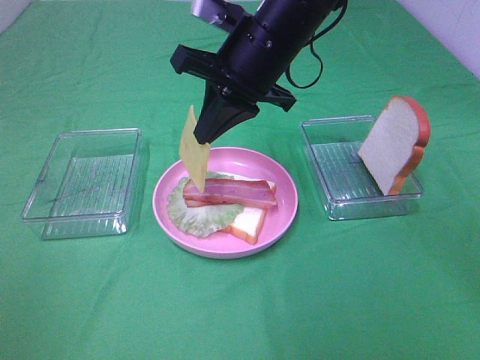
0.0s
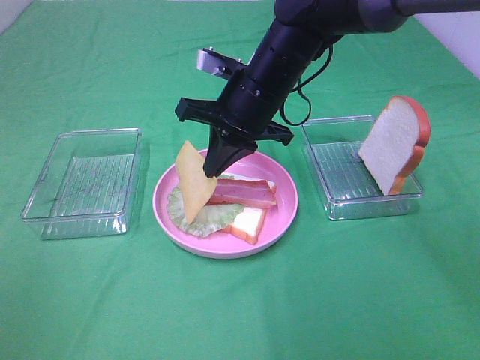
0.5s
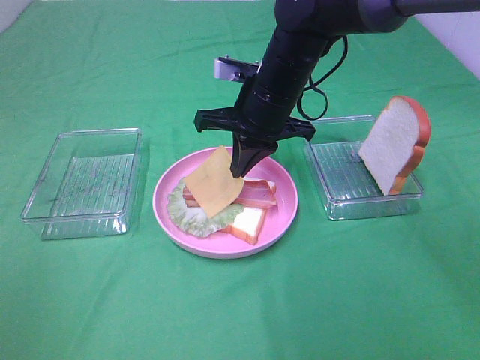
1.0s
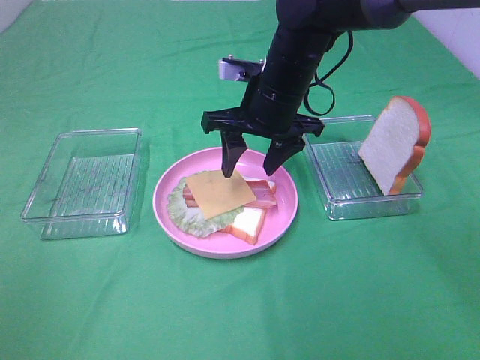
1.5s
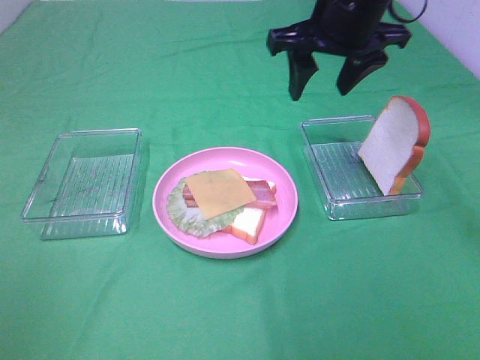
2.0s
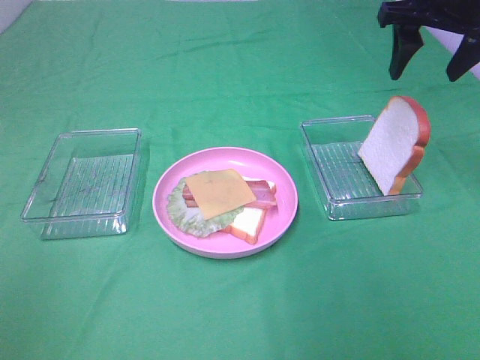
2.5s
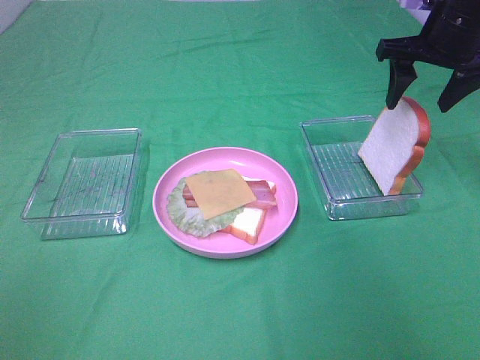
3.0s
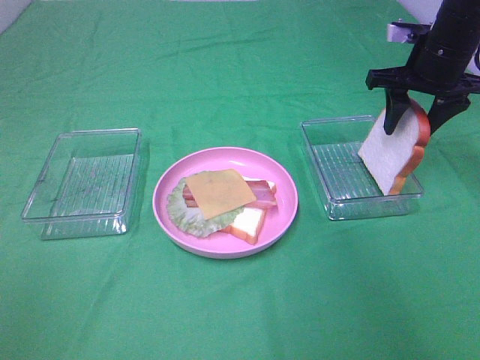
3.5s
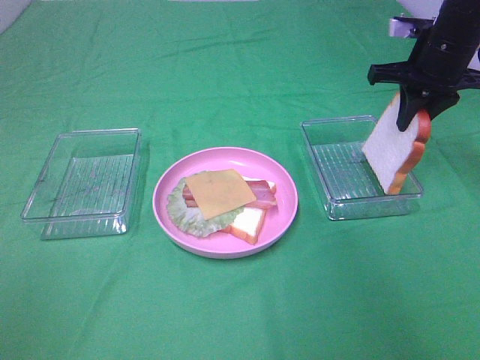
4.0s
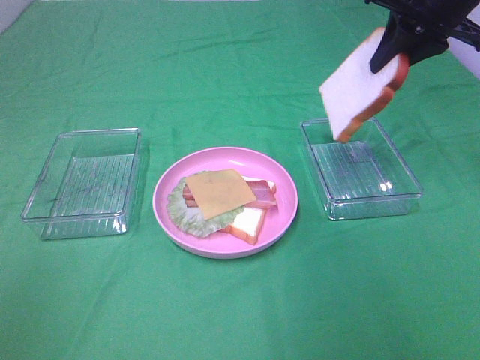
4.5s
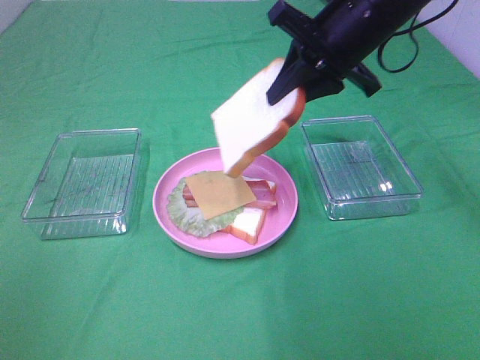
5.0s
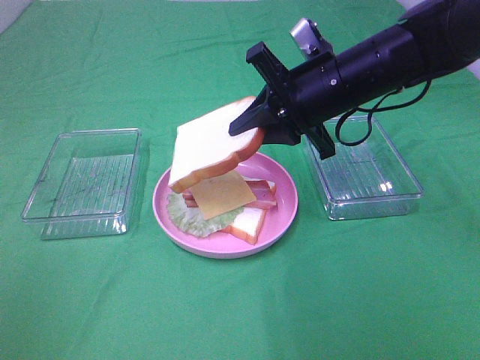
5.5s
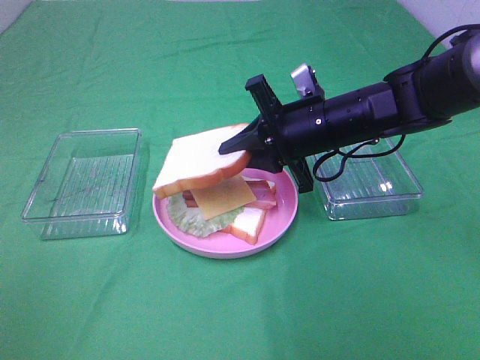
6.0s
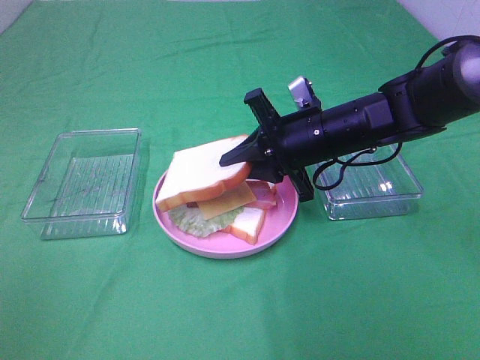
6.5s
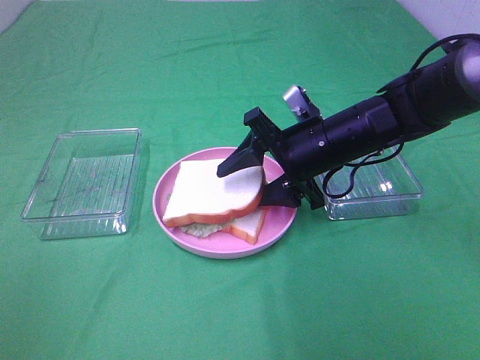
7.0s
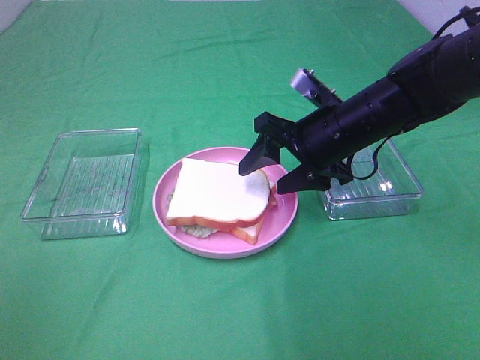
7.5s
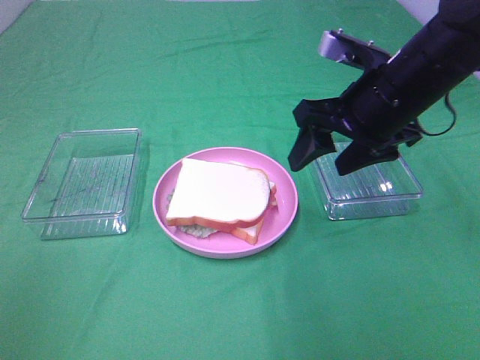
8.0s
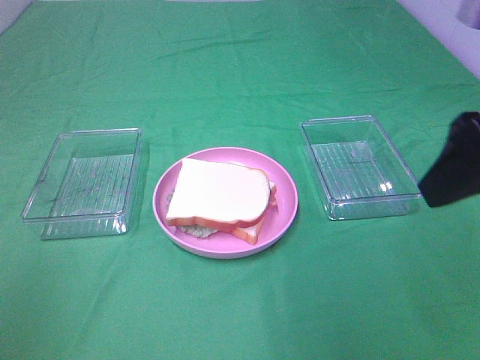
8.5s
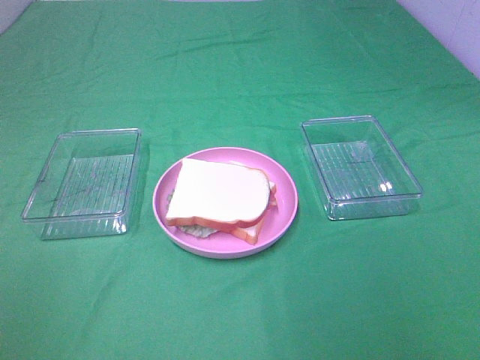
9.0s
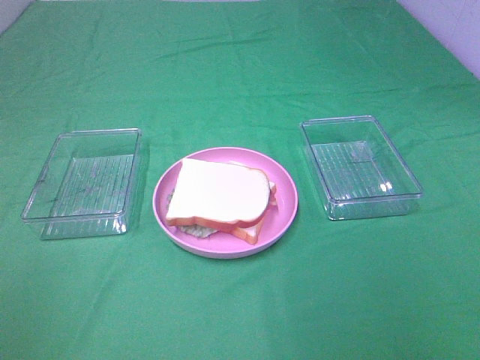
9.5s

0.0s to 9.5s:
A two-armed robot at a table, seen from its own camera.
Task of the whole recording: Make sandwiches.
Step, 1.5s to 3.5s: Right hand:grab the bread slice.
Step, 4.0s to 7.5s: Right hand:place the bread slice on the cheese slice.
0.0s to 2.0s: The right gripper moves to the right, approximately 10 cm, and opens its fingers.
2.0s to 4.0s: The right gripper moves to the right and downward, about 15 cm, and closes up.
4.0s to 5.5s: The right gripper is displaced to the left and backward by roughly 15 cm.
5.5s to 7.5s: The right gripper opens.
7.5s to 9.5s: The right gripper heads backward, to the right and upward, covering about 40 cm.

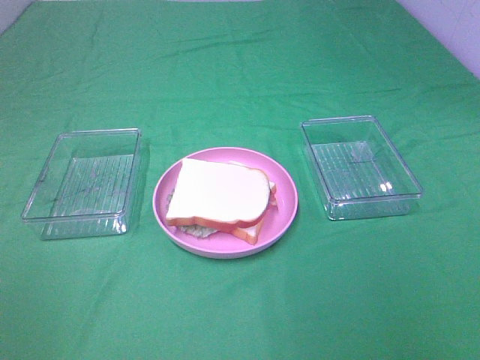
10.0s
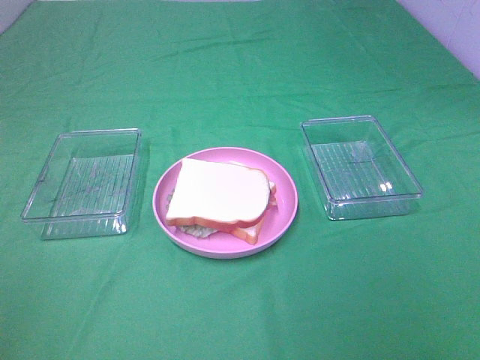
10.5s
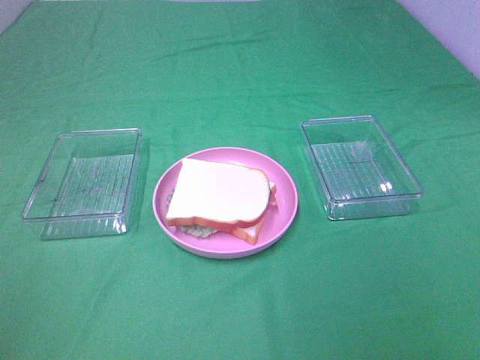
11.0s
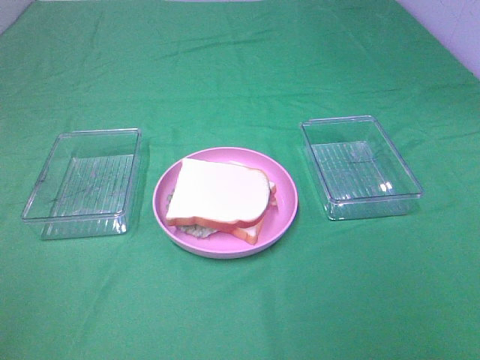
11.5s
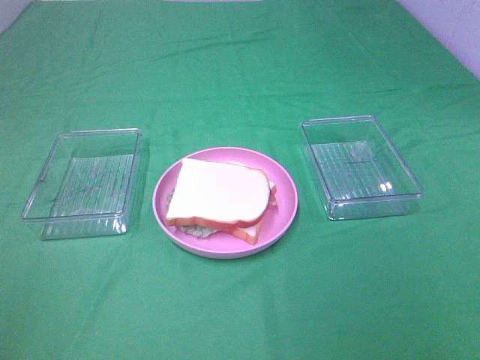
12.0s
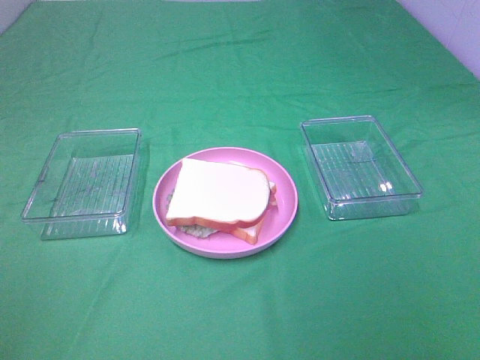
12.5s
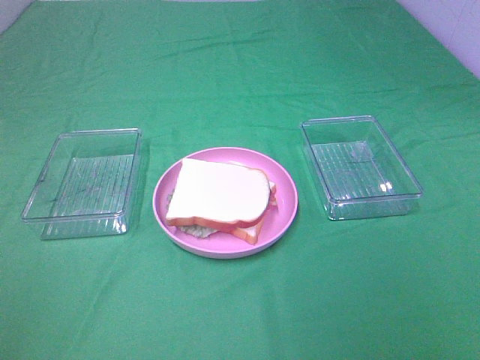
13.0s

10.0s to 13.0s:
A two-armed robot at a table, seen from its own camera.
Task of the whole recording: Make sandwiches.
11.5s to 13.0s: Both grippers stay put.

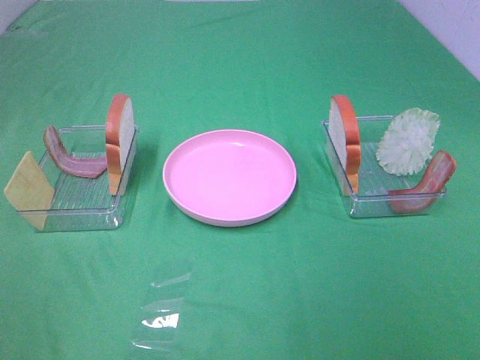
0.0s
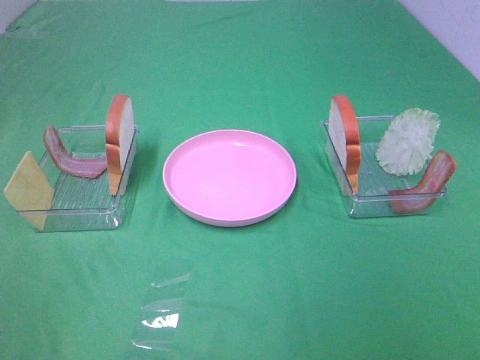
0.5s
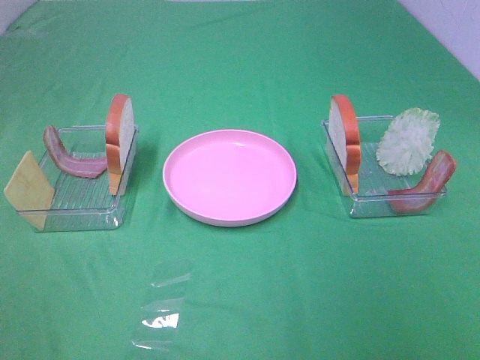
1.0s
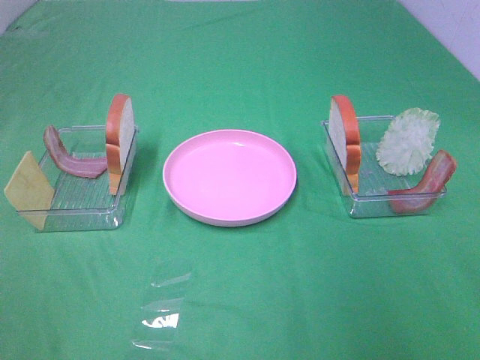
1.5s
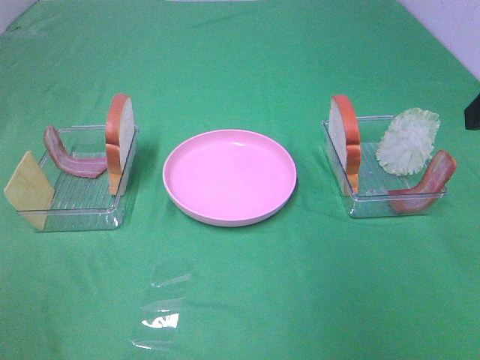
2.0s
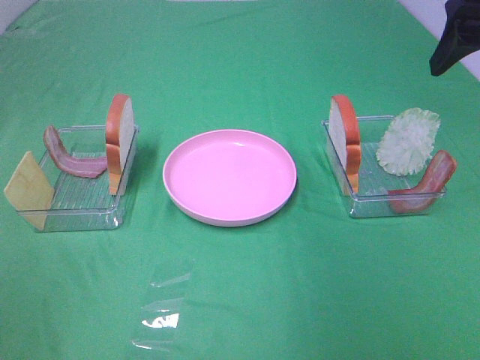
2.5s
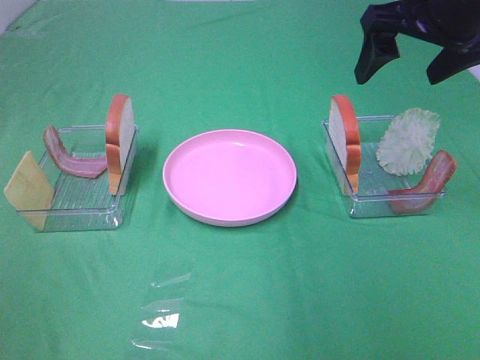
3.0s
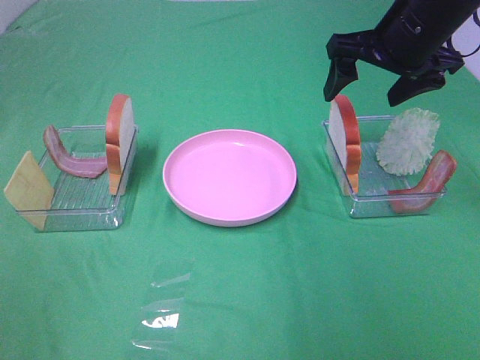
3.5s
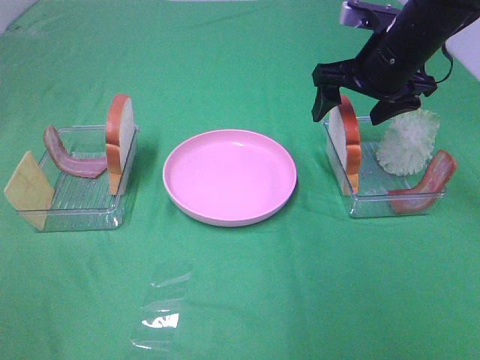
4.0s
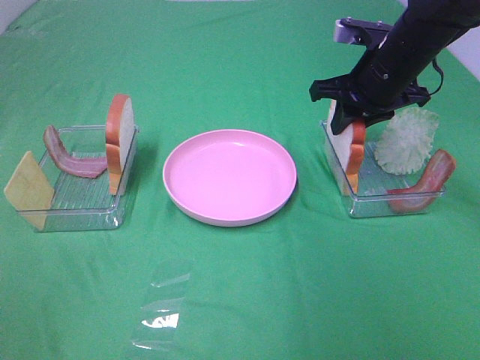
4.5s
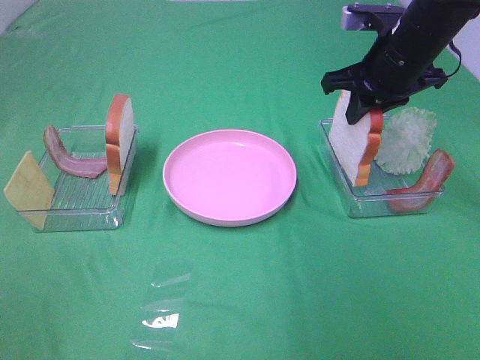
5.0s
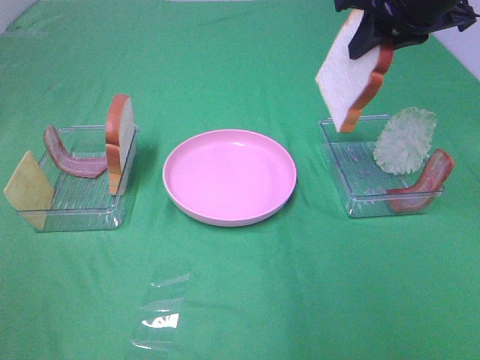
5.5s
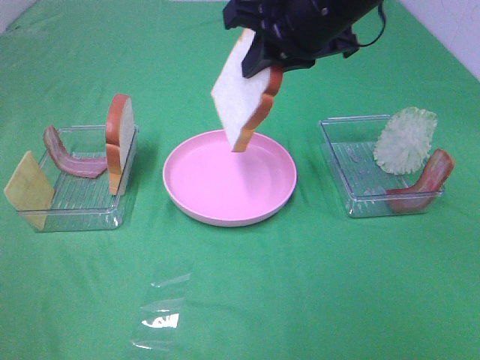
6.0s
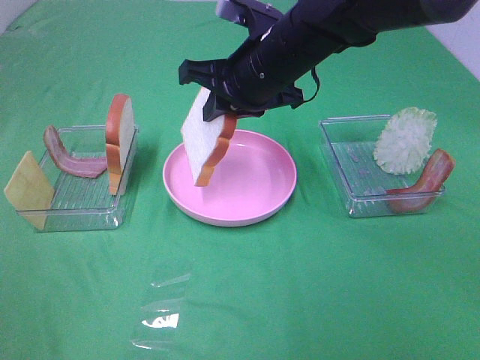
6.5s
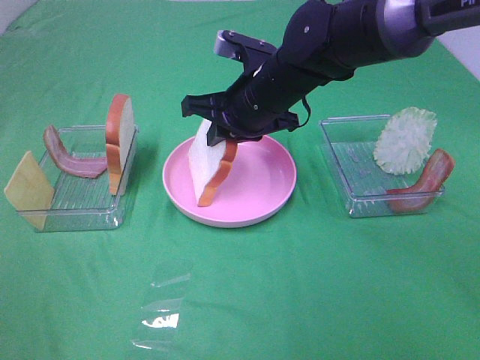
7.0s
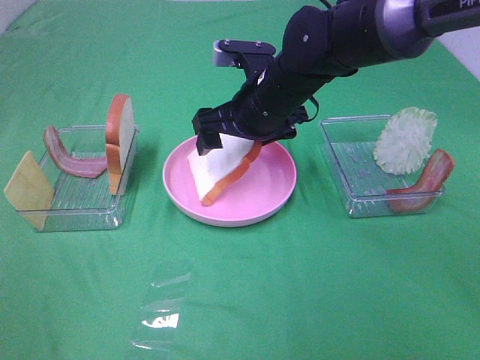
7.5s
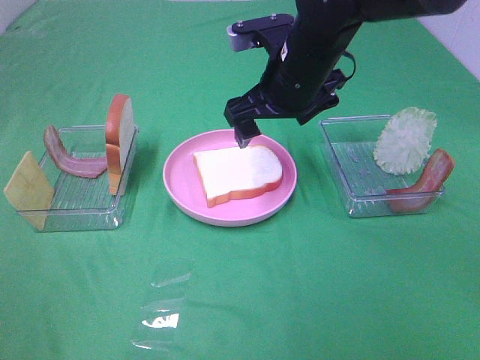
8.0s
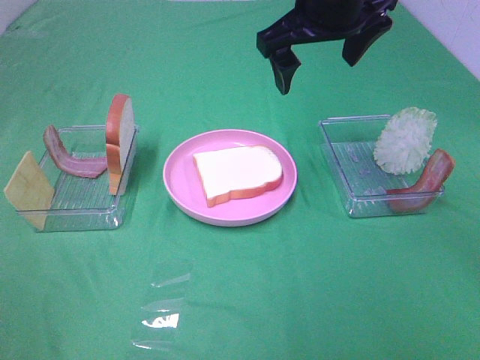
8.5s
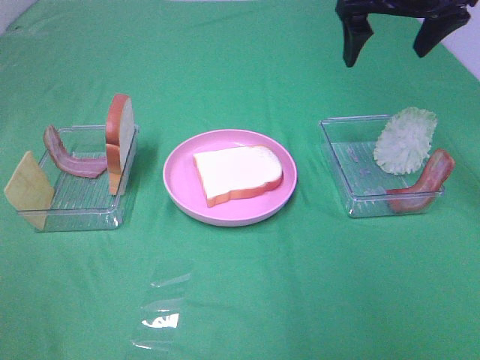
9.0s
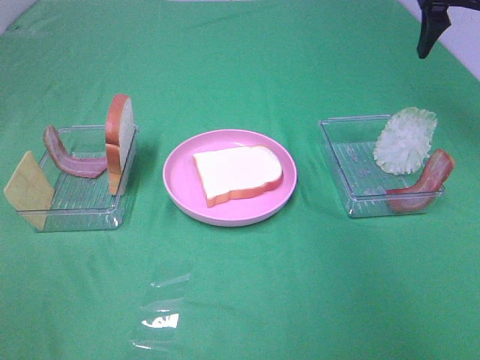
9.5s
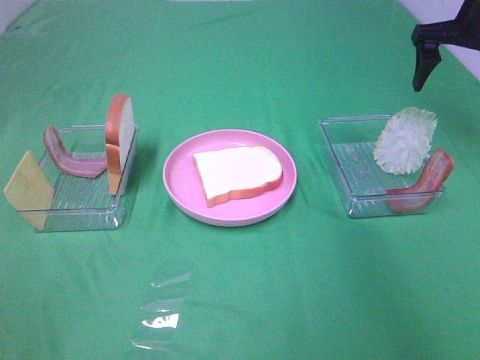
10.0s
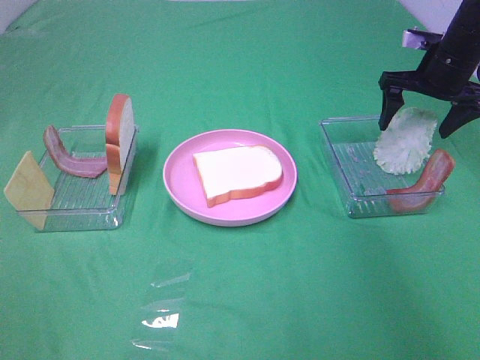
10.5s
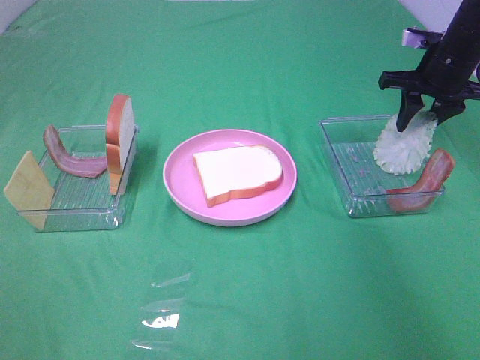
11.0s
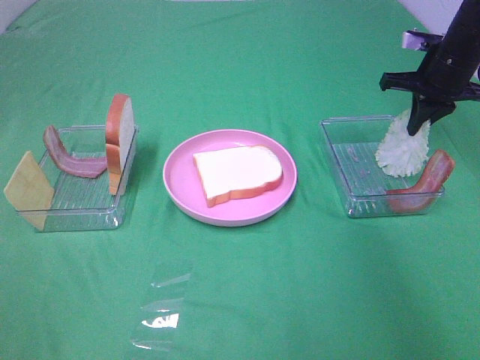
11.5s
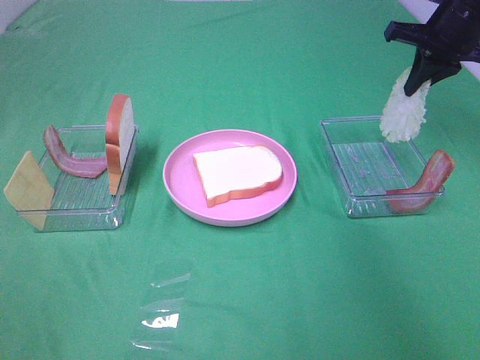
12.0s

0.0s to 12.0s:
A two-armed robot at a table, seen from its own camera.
Task of the whole recording: Make sandwiches.
Step, 0.0s to 4.5s: Right hand:grab the bread slice.
Step, 5.0s to 7.5s: Right hand:place the bread slice on the plate.
Step, 8.0s to 11.0s: Right hand:grab the lettuce slice.
2.0s to 4.0s: The right gripper goes roughly 25 cm forward, downward and to the left.
4.0s to 6.0s: The right gripper shifts roughly 15 cm to the left and upward, and closes its fingers.
6.0s to 8.0s: The right gripper is displaced downward by roughly 5 cm, and opens.
8.0s to 10.0s: The right gripper is displaced to the right by roughly 25 cm.
10.0s to 12.0s: The right gripper moves about 10 cm downward and comes back, and closes up.

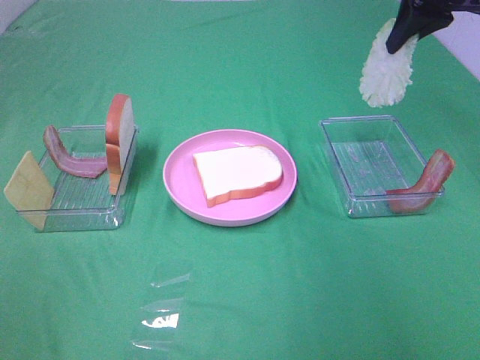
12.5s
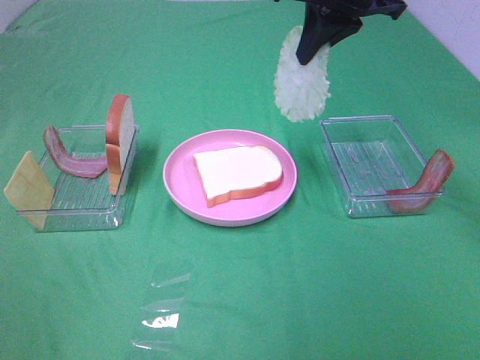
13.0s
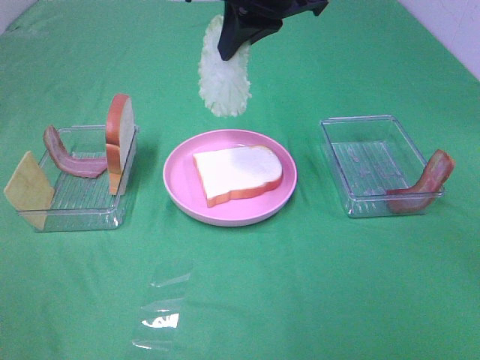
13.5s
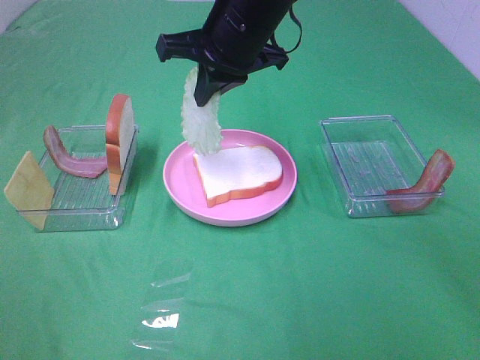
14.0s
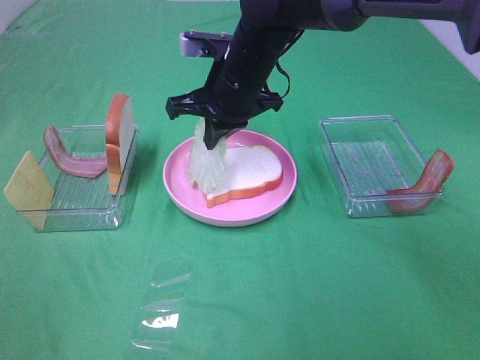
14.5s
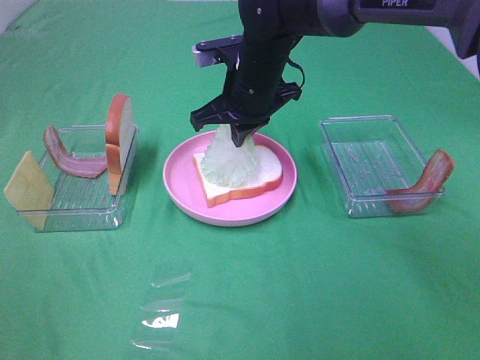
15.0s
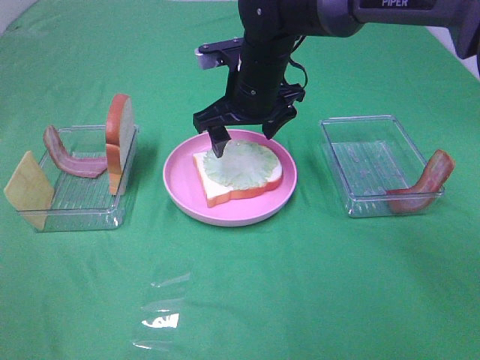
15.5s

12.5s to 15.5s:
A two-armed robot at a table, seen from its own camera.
Task of the whole recording: Make sandwiches.
12.5s to 14.0s: The right gripper goes about 20 cm to the left.
14.0s to 15.5s: The right gripper travels downward by roughly 10 cm, and opens up.
